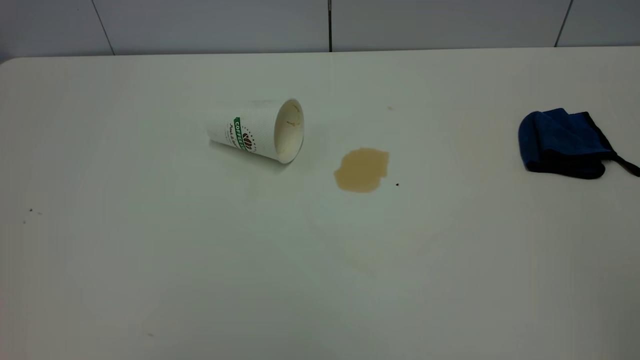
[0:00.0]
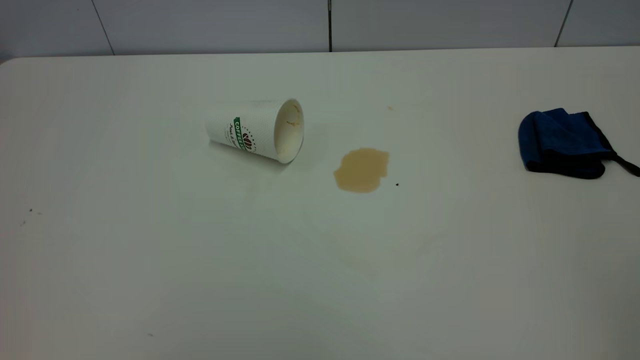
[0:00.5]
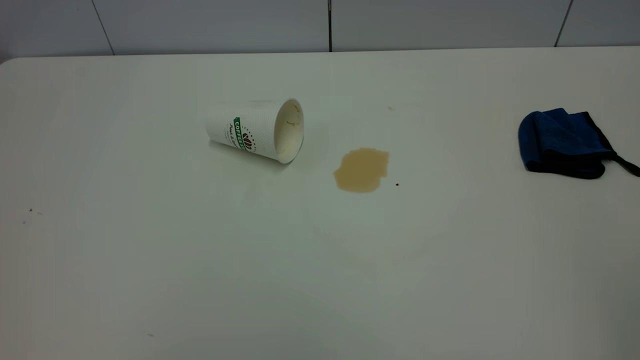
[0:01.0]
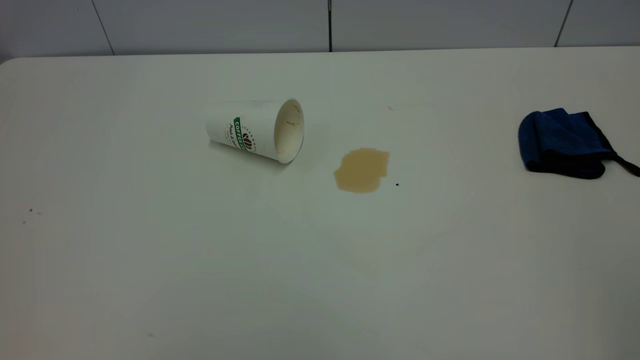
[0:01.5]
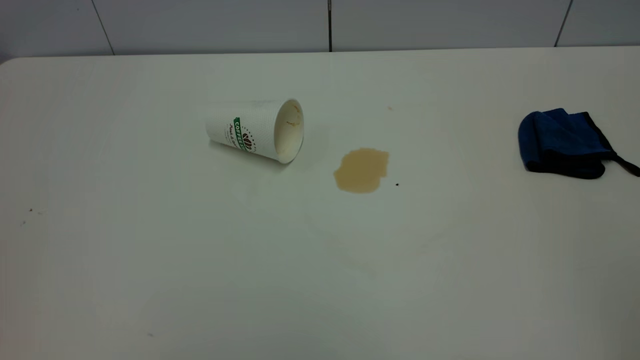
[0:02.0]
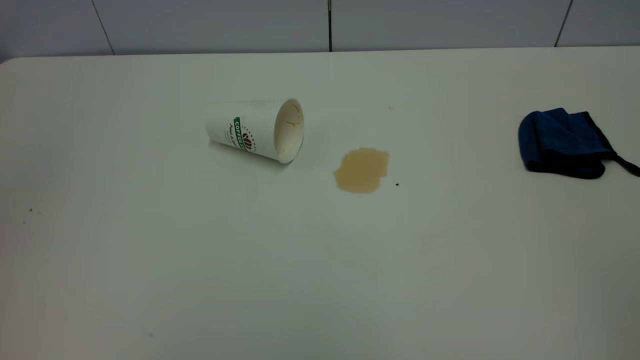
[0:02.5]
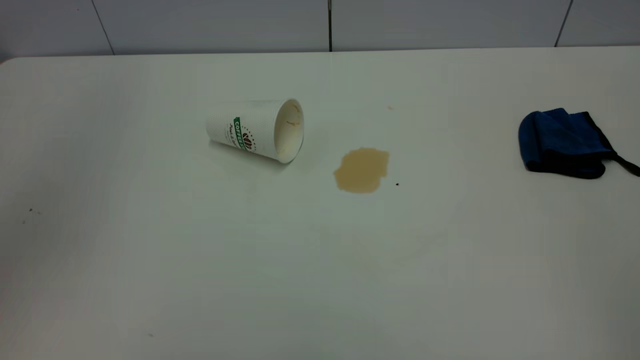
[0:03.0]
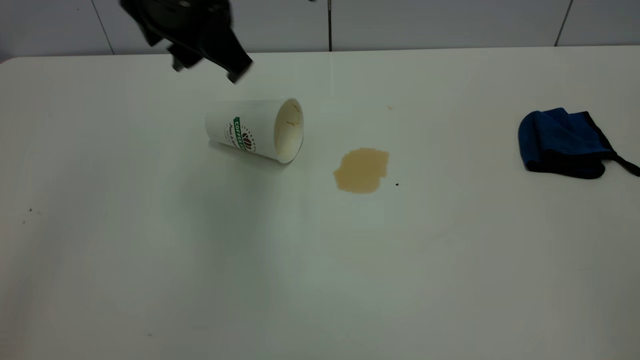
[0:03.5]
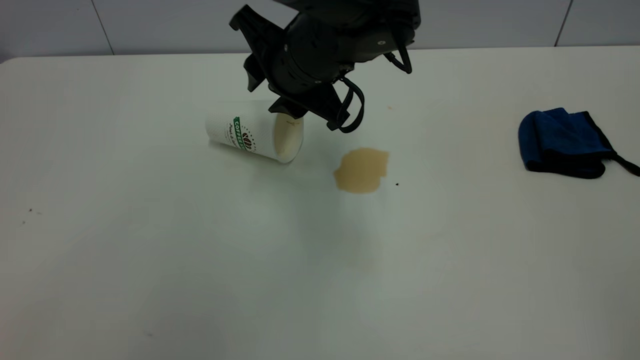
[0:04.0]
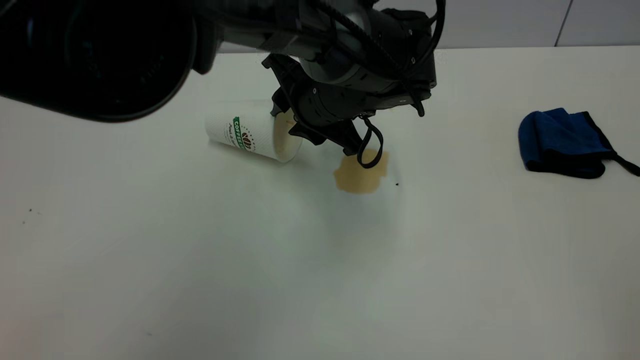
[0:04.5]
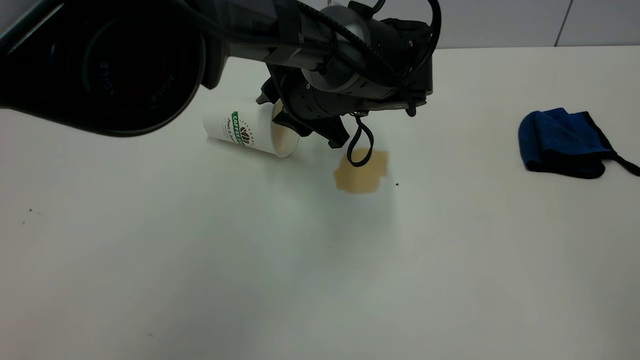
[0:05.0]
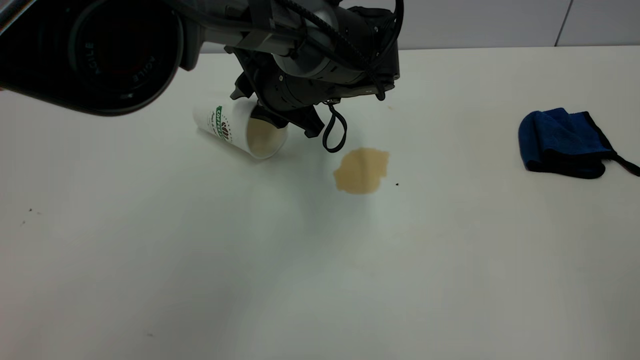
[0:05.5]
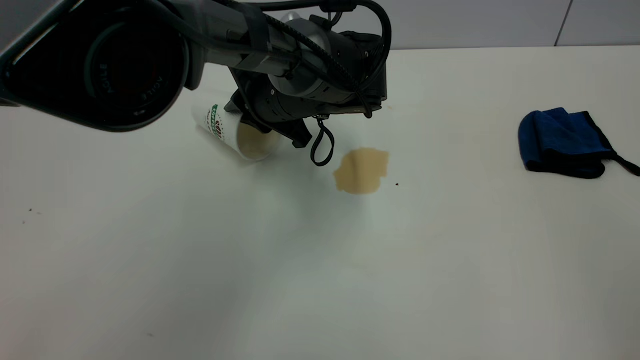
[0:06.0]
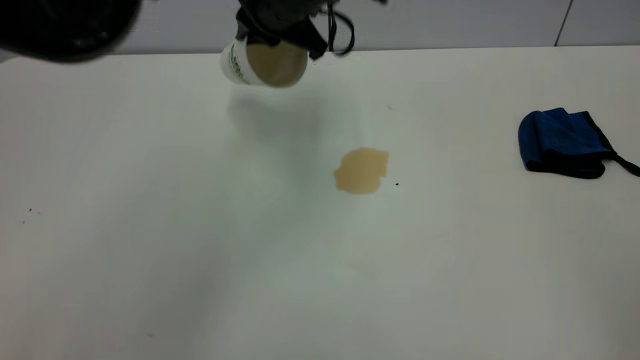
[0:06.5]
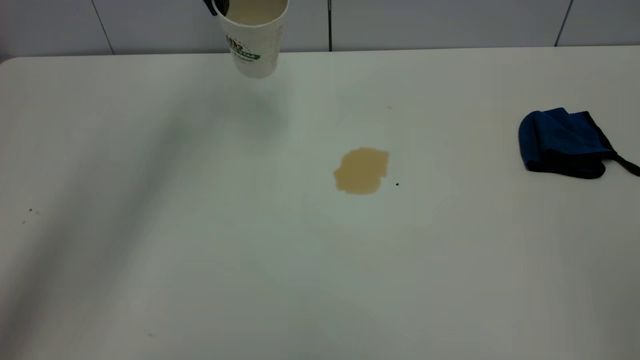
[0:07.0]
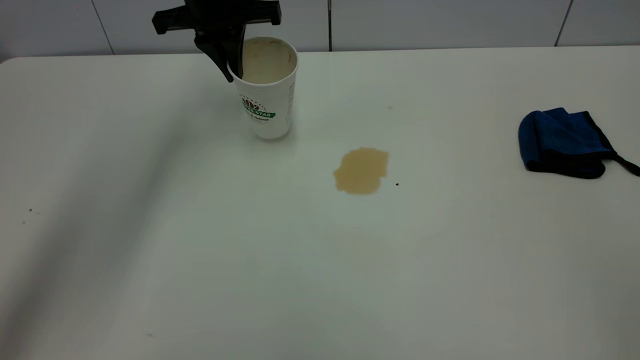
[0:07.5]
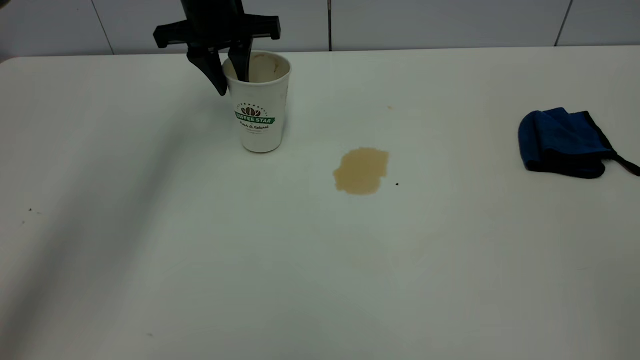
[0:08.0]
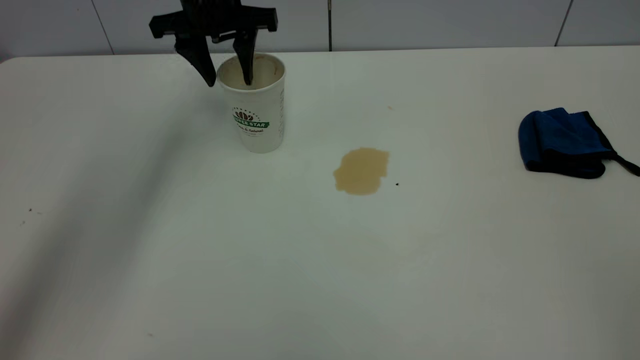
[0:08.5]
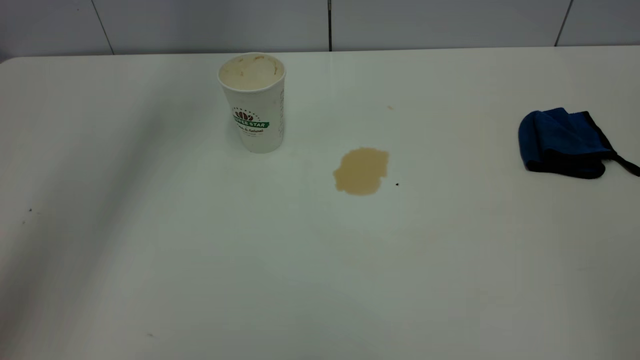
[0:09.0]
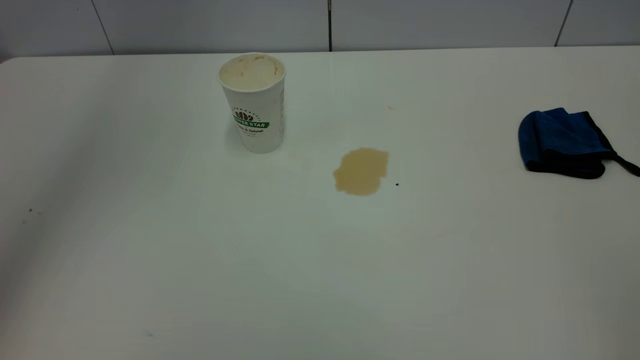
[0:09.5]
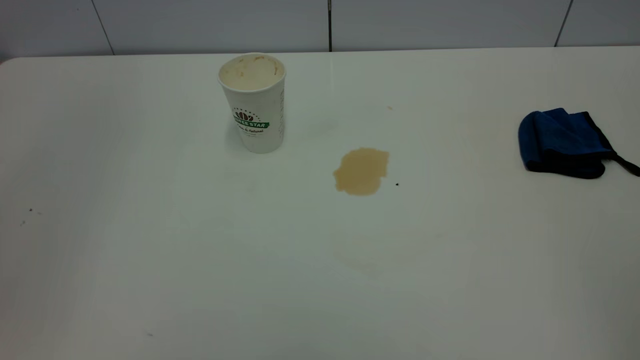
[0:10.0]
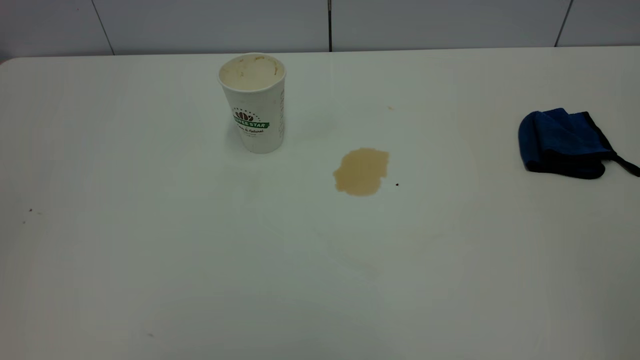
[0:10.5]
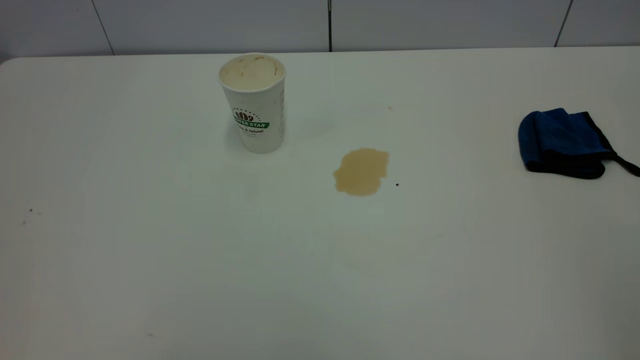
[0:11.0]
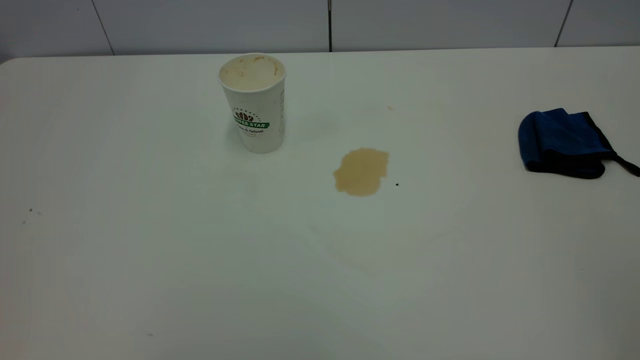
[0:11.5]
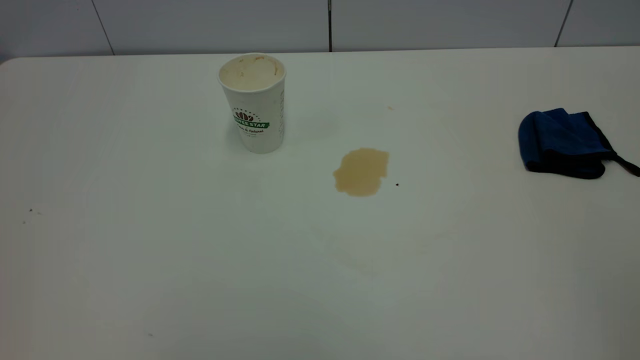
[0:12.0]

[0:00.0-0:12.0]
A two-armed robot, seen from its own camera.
Task of the whole recording: the left gripper pick up the fallen cup and place it upright, the right gripper grasp the blue rag and wipe the tea stain on the table, the right gripper put the blue rag back in its original position.
Step, 0:00.0 to 0:08.5: Stand the paper cup upright.
0:02.0 to 0:04.0: The left gripper is displaced forward, to the right and downward by some 50 cm.
0:04.0 to 0:06.0: The left gripper goes about 10 cm downward and forward, and closes.
0:06.0 to 0:08.0: The left gripper is displaced to the left, upward and forward by approximately 15 cm, and opens its fingers.
0:08.0 to 0:10.0: The left gripper heads backward and upward, covering approximately 40 cm, and opens its fingers.

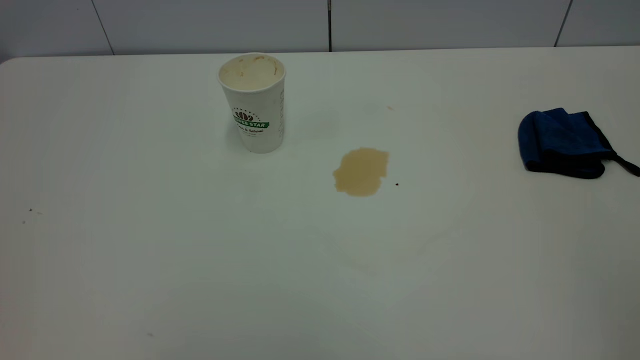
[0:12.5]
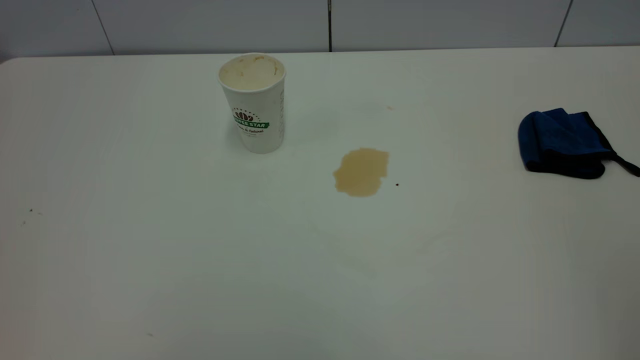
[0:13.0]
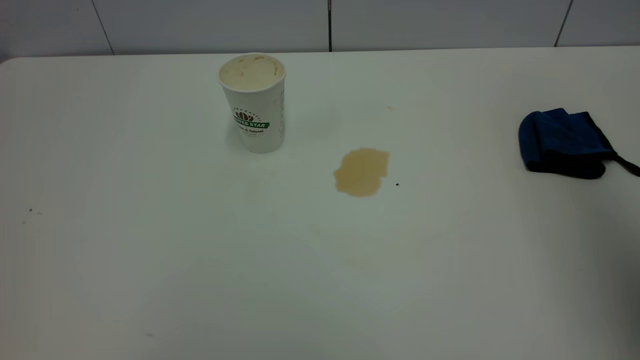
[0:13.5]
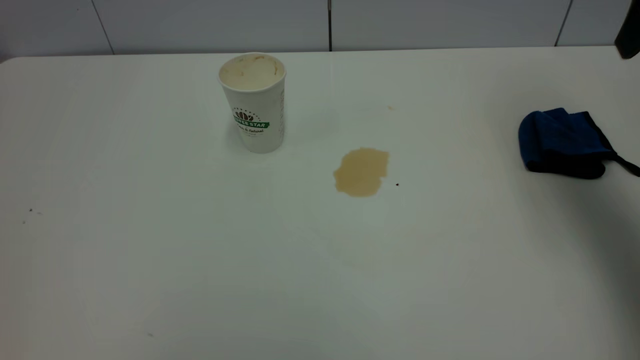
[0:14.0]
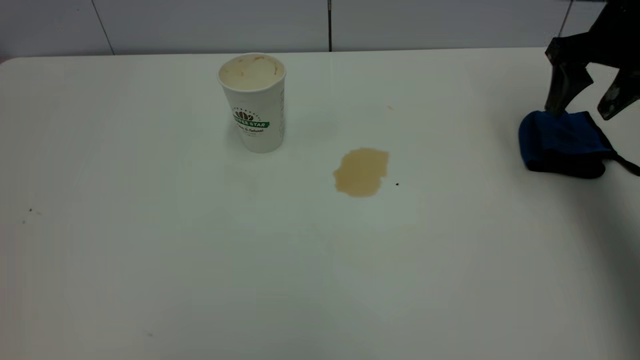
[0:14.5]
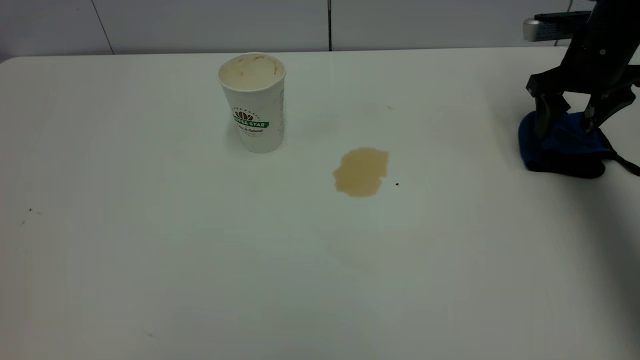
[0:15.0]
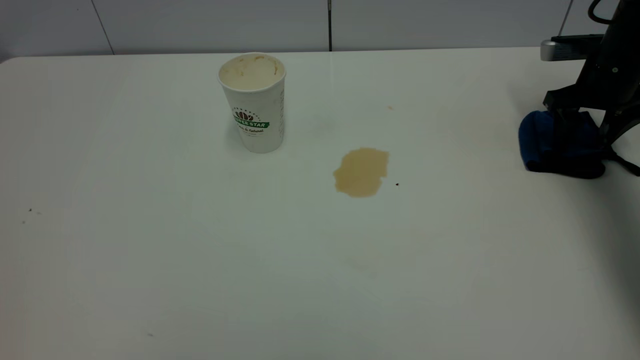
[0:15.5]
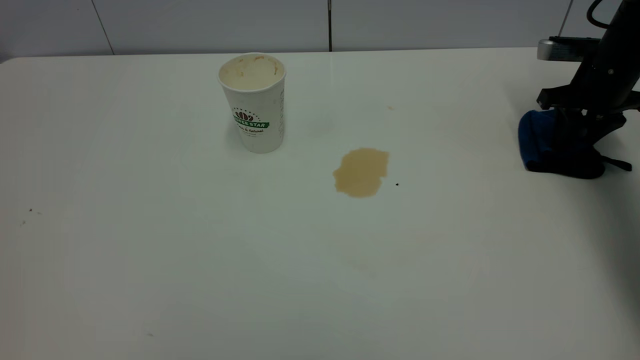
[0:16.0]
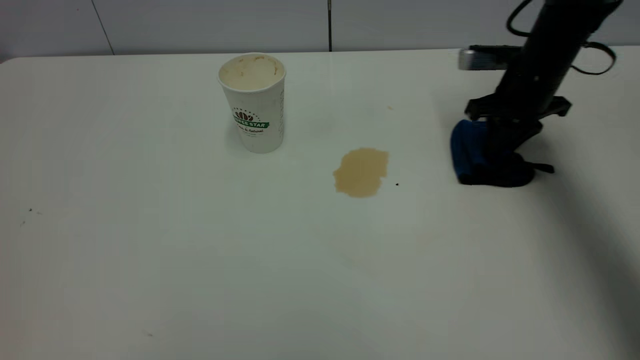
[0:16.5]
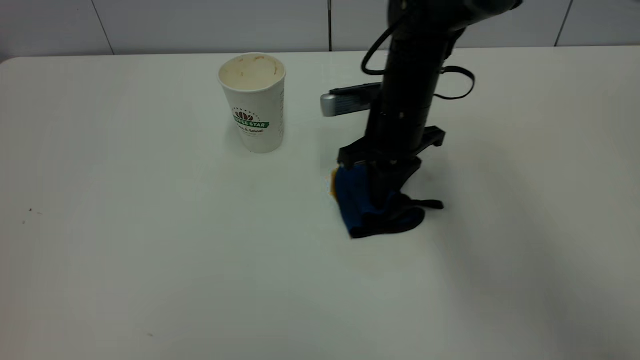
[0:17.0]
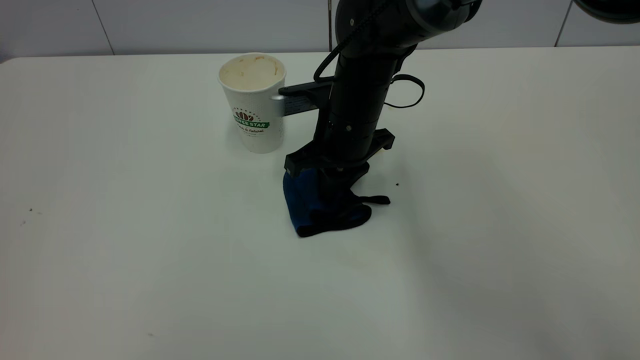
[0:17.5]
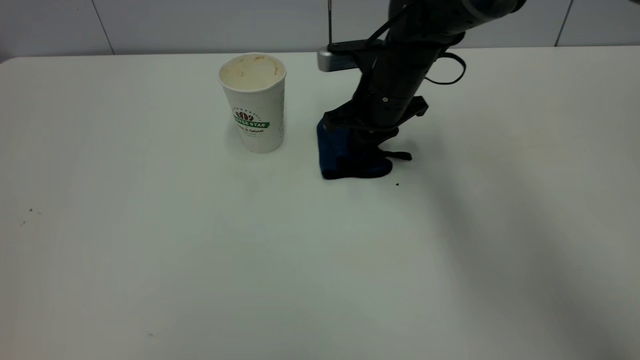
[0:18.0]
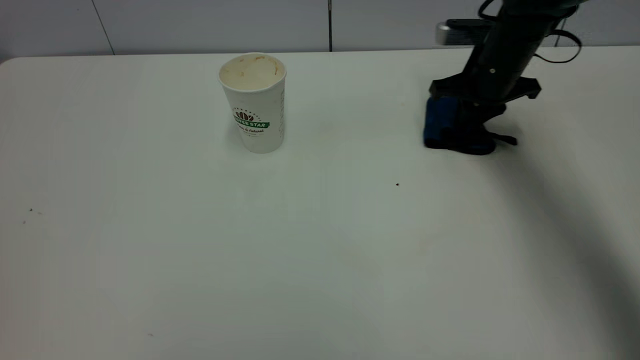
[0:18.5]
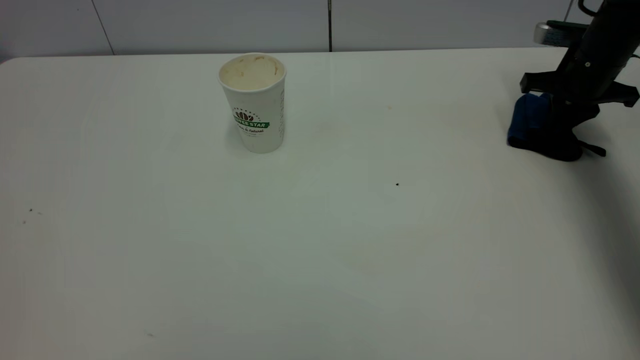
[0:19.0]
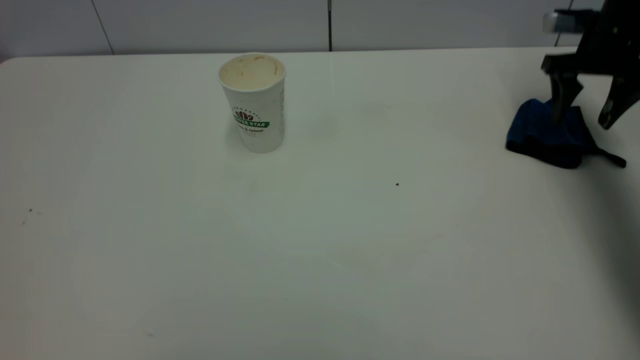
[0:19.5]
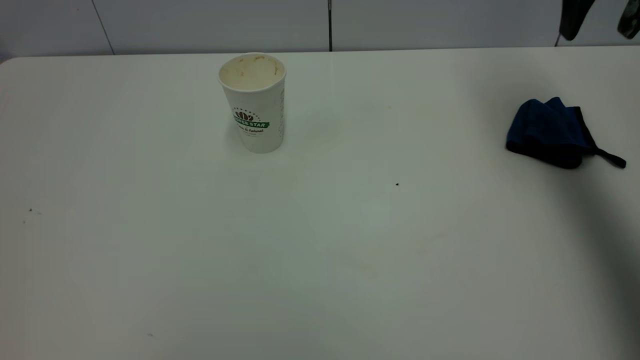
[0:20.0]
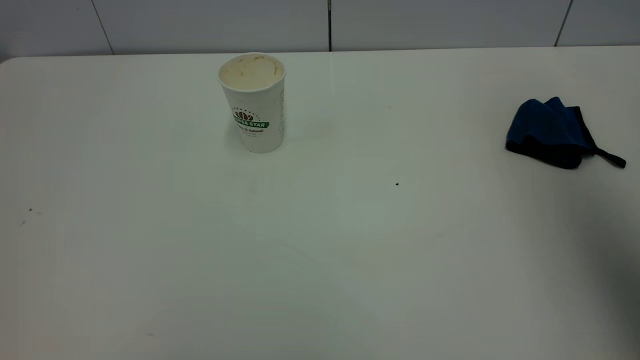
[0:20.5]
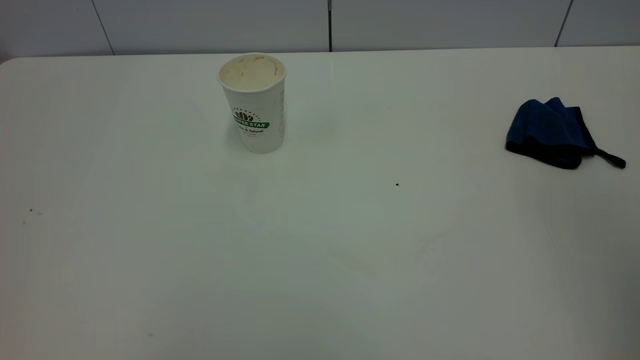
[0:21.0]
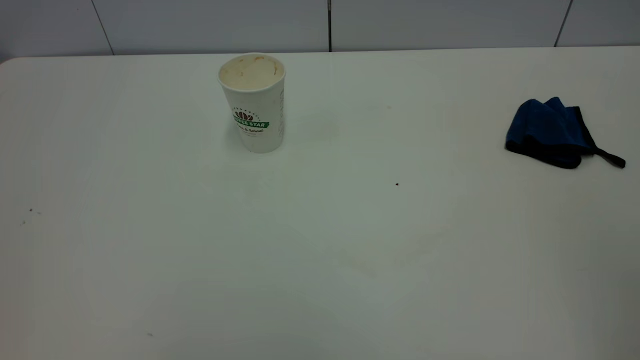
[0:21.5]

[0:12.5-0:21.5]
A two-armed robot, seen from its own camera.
Task of the whole recording: the left gripper pick up the fallen cup and place it upright, the right gripper grasp the blue rag and wipe the tea stain on the table, the right gripper put the blue rag back in its original position.
Step, 0:12.5 to 0:19.5: Wipe the stains off the table with a rag.
0:12.5 to 0:14.5: The right gripper is displaced forward by roughly 40 cm, and opens up.
0:14.5 to 0:17.0: The right gripper shifts some 25 cm to the left and downward, and closes.
0:17.0 to 0:19.5: The right gripper is displaced to the right by about 25 cm, and opens up.
0:19.5 to 0:21.5: The right gripper moves backward and upward, about 50 cm.
